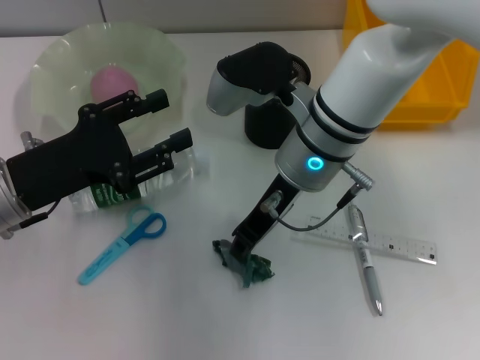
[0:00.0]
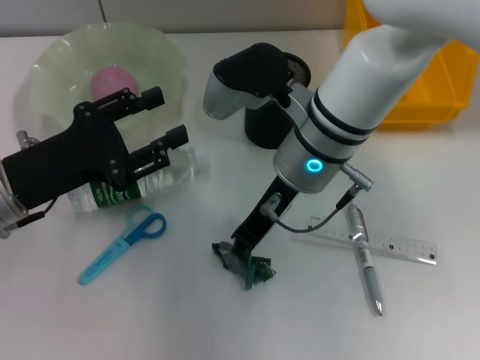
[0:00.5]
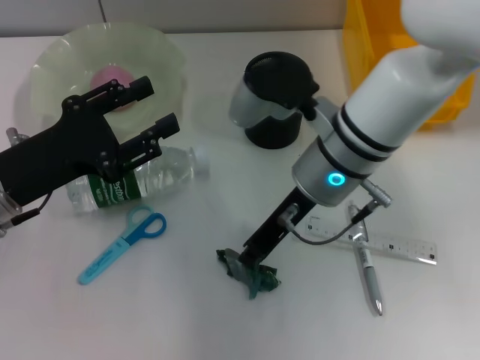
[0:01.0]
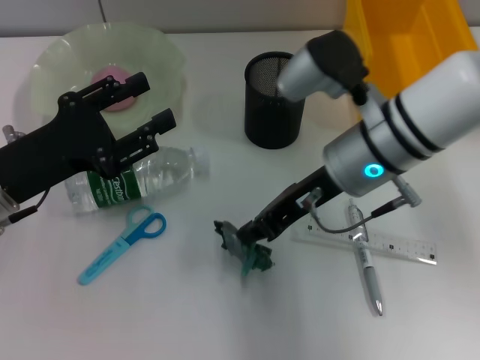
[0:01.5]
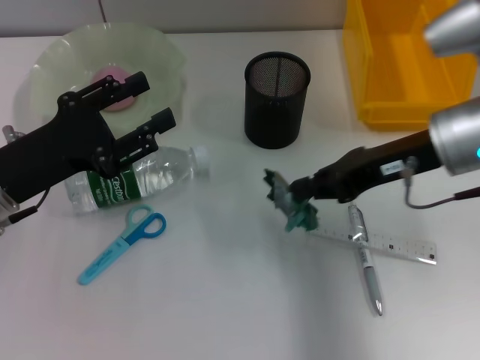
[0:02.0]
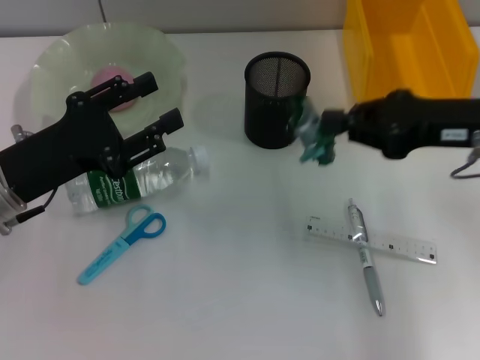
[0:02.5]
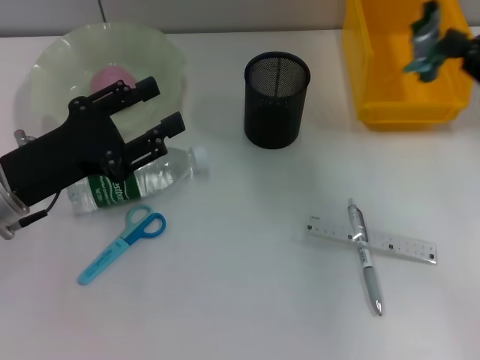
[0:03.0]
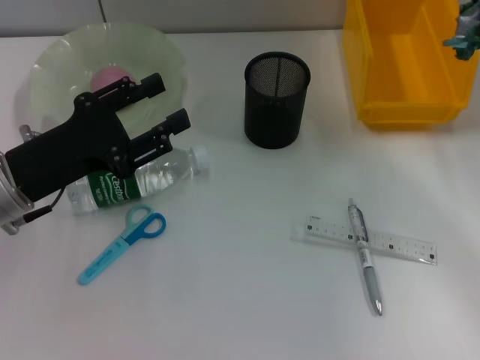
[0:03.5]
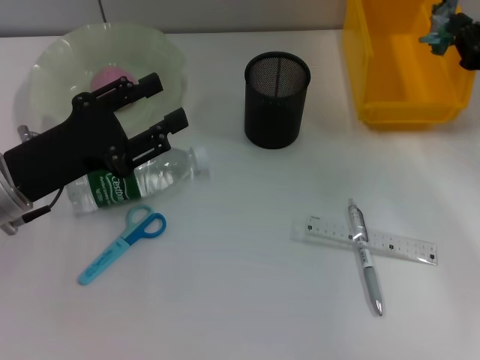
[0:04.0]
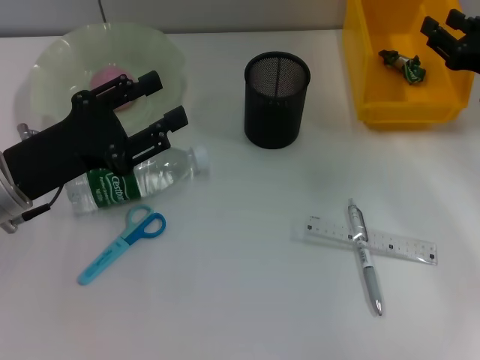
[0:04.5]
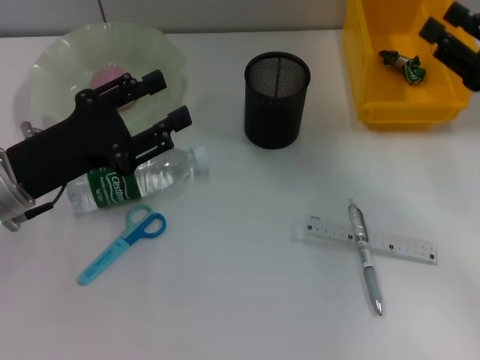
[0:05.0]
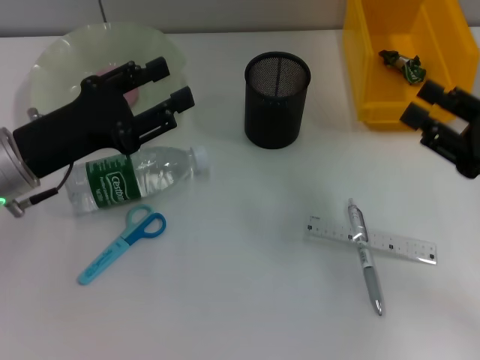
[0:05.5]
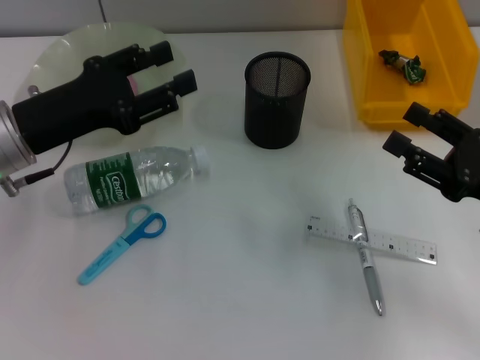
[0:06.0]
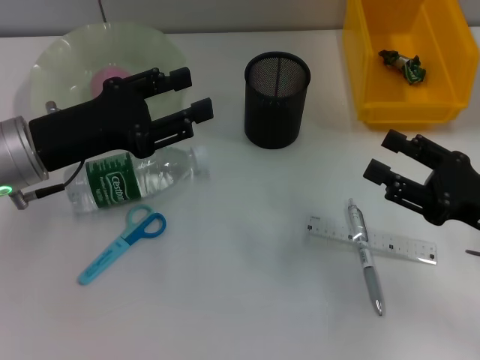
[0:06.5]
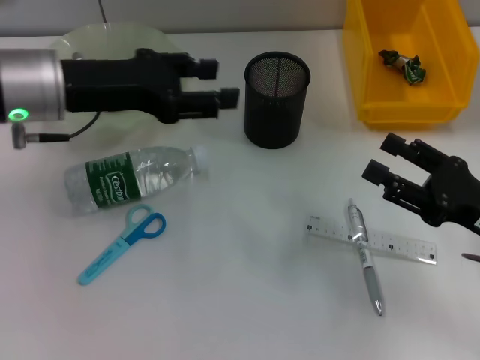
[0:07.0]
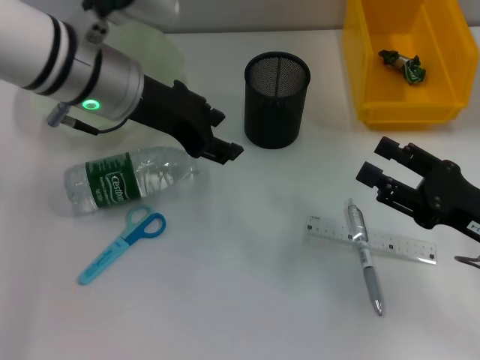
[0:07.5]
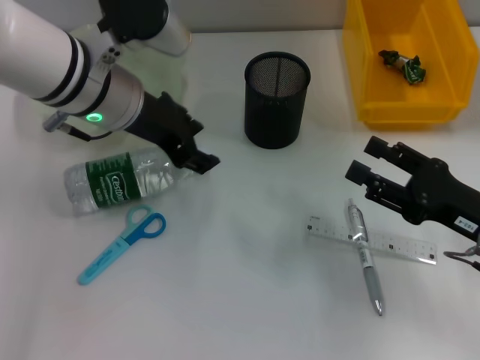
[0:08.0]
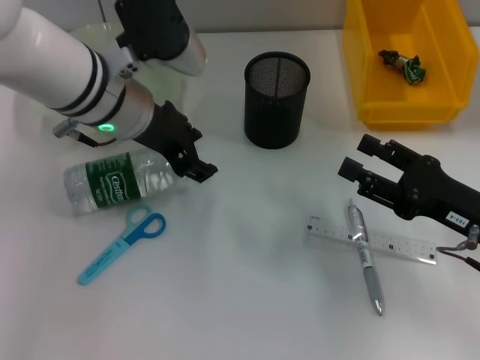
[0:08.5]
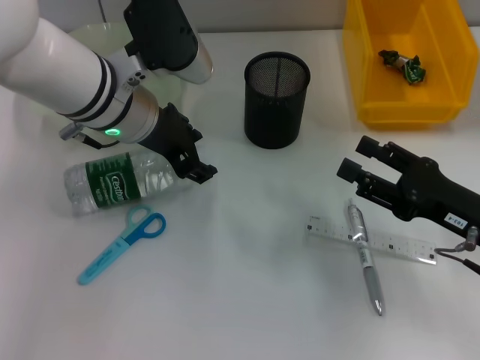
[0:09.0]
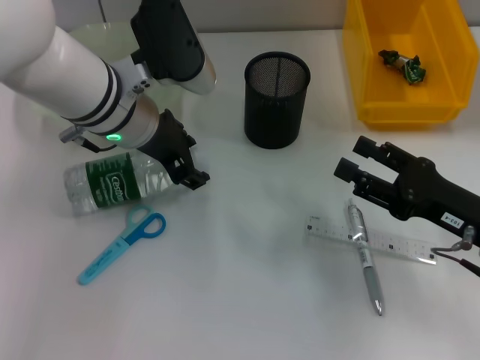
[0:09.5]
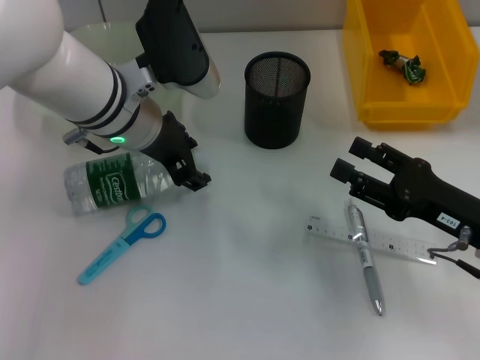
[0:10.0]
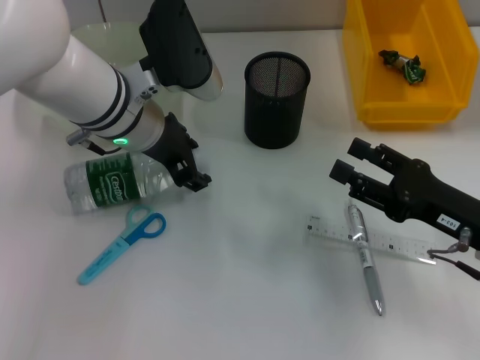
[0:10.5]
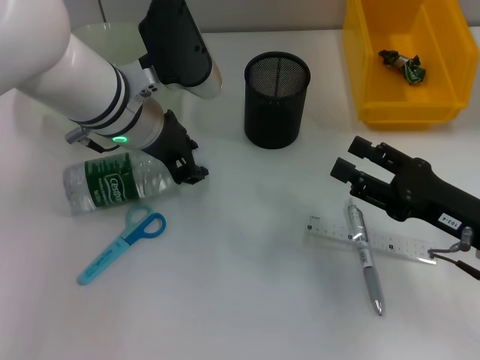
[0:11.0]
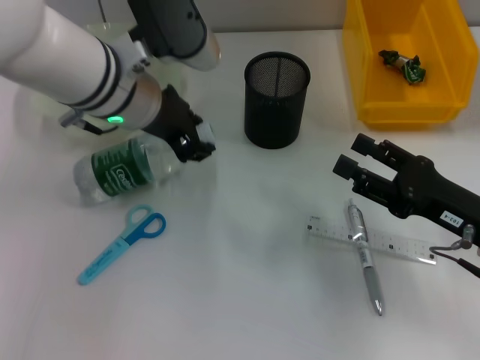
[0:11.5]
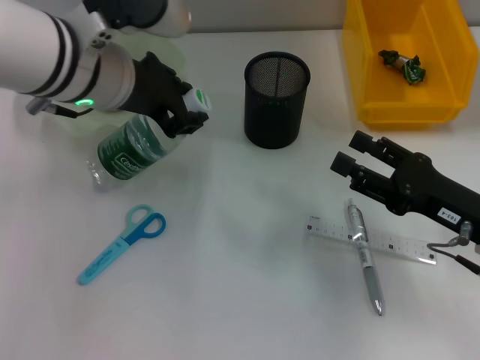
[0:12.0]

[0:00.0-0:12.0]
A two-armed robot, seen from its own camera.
Step, 1.5 to 4.5 s: Place the plastic into the trash can with the right hand.
Step, 5.0 to 11.0 s: Grab the water bottle with the left hand.
0.0 to 2.0 s: The right gripper is displaced to the right by some 15 cm.
2.0 to 4.0 s: The right gripper heads to the right and downward, covering some 15 cm.
4.0 to 6.0 s: The right gripper heads backward, covering roughly 10 cm, and opens.
6.0 to 8.0 s: The left gripper goes approximately 10 cm to the right and forward.
8.0 to 10.0 s: The grippers make only small movements.
10.0 to 12.0 s: The left gripper is displaced upward by about 5 cm.

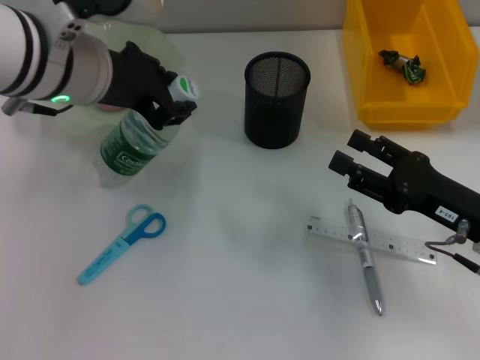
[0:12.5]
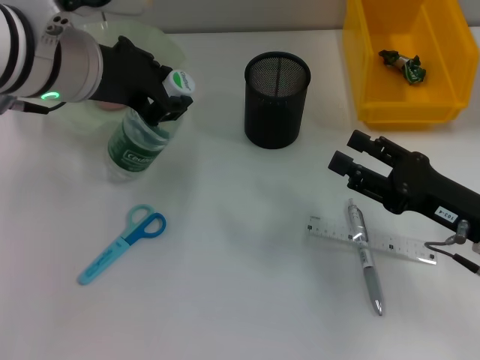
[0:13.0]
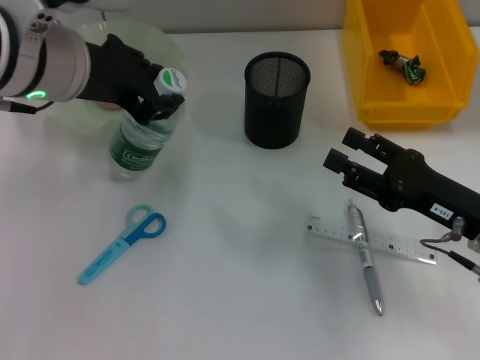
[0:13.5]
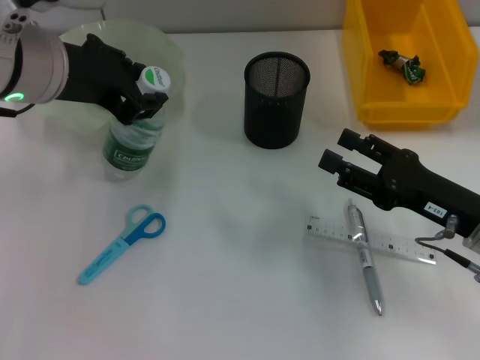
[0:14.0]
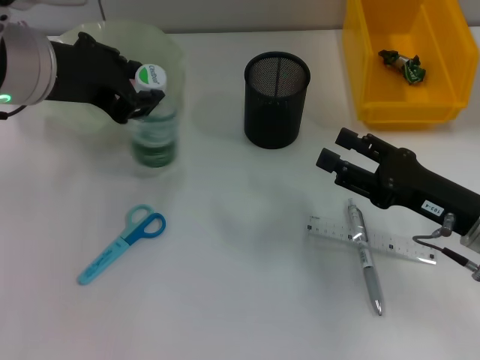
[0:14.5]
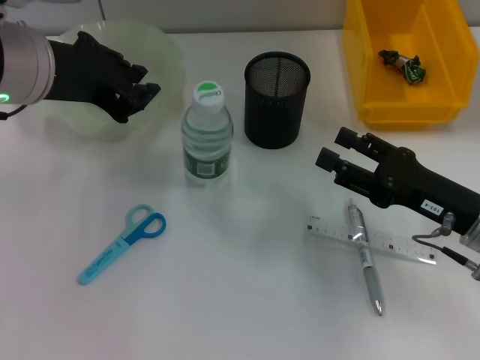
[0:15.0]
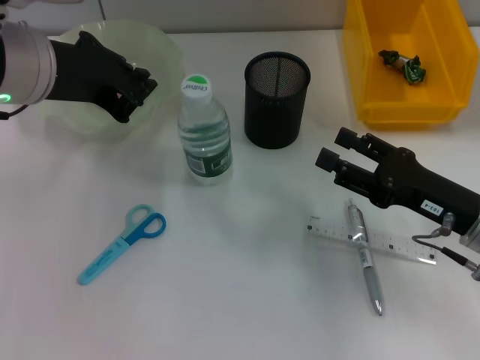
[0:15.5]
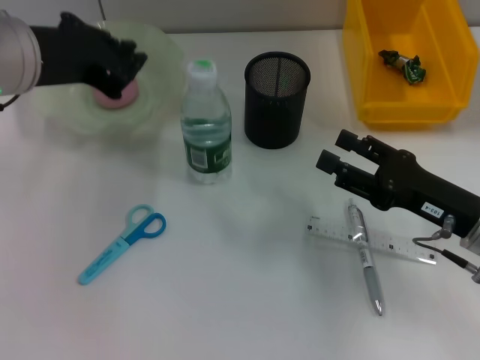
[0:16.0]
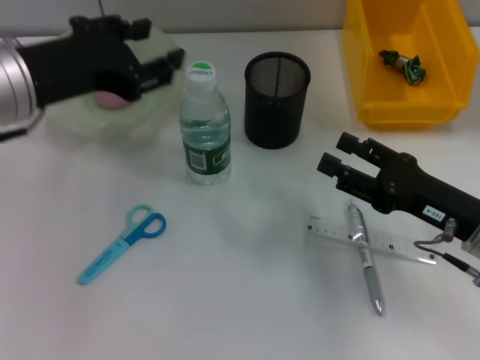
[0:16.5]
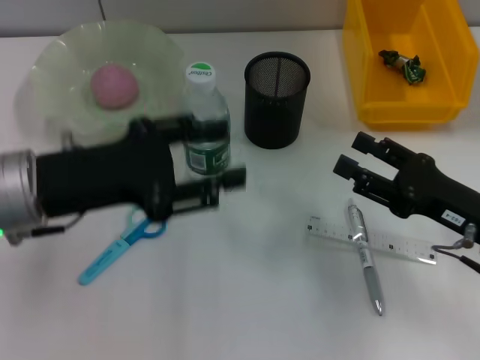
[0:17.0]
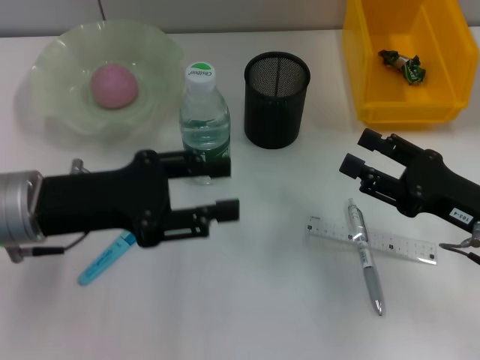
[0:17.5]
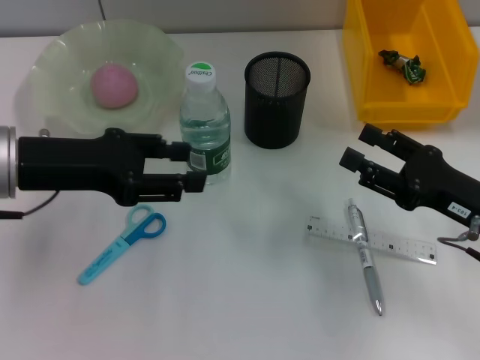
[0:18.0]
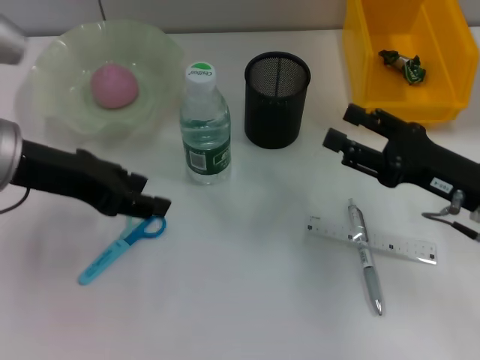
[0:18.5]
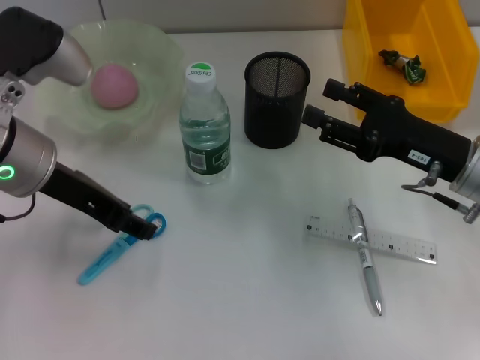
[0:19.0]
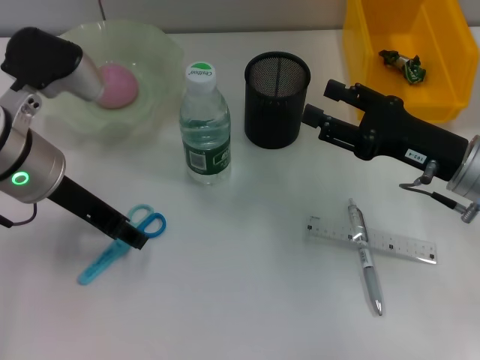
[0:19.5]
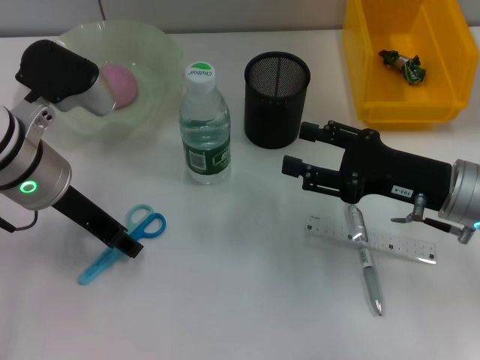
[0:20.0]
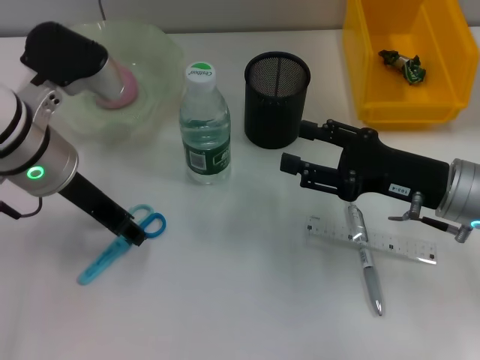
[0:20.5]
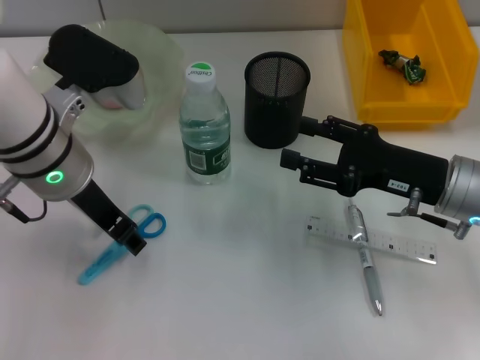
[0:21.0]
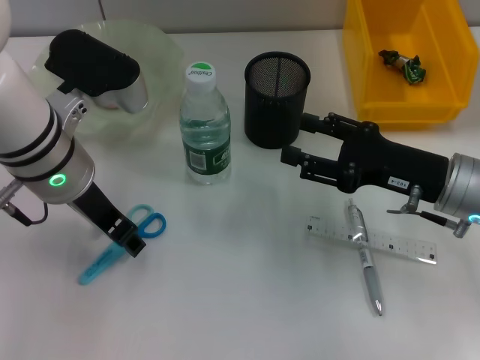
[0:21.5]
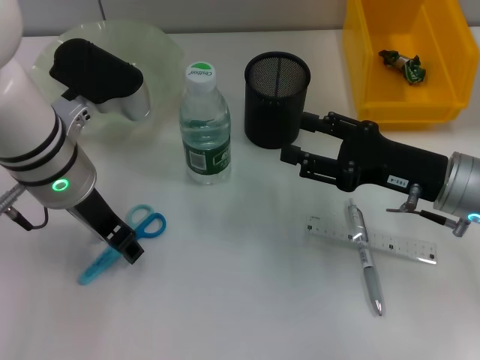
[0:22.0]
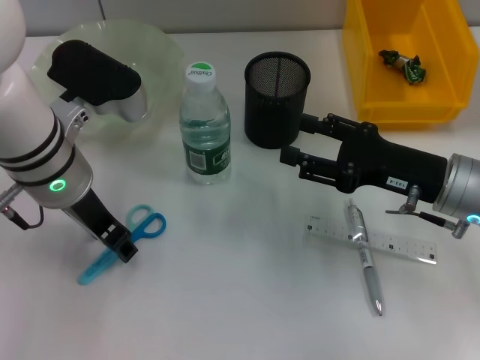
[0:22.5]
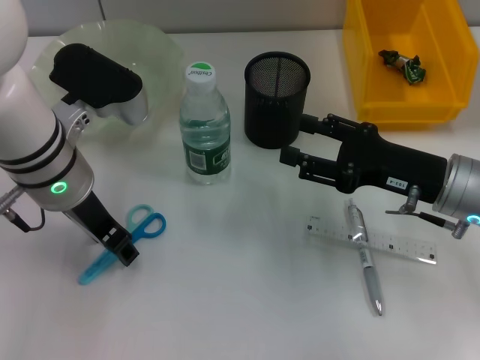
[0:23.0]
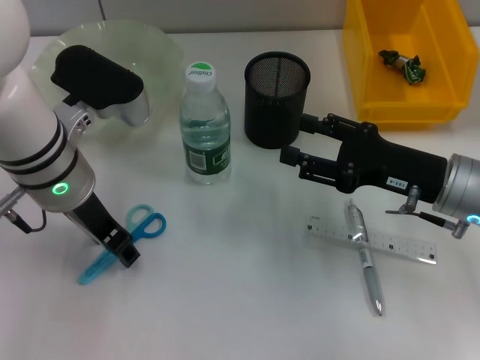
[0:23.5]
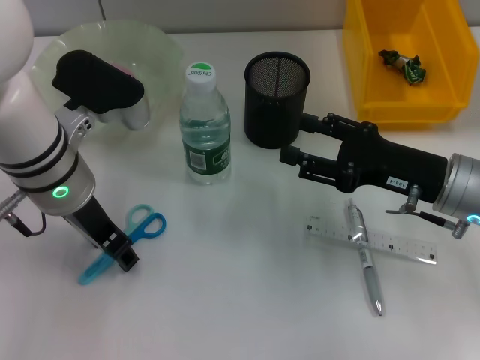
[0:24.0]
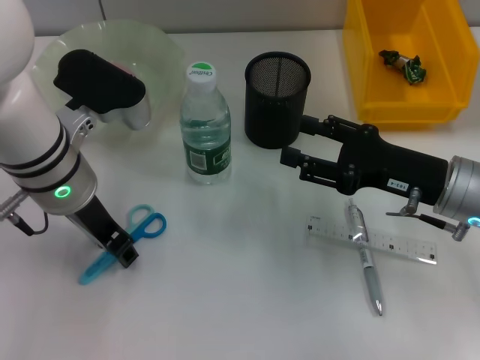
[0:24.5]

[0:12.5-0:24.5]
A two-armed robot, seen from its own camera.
Step, 12.5 to 15.5 s: Place the water bottle on the table with the left hand.
12.5 to 14.5 s: The grippers stay close to where they were, moving slightly.
14.5 to 16.5 s: The left gripper closes, then opens again.
16.5 to 18.5 s: The left gripper moves some 10 cm downward and comes back.
18.5 to 20.5 s: The left gripper changes place by roughly 5 cm.
20.5 to 22.5 s: The grippers stay close to where they were, moving slightly.
22.5 to 24.5 s: Both grippers stay put.

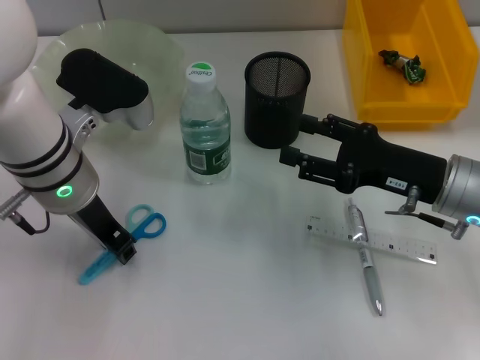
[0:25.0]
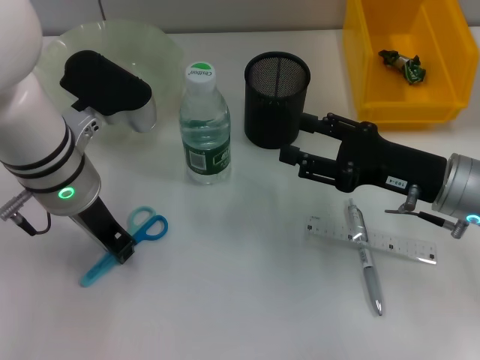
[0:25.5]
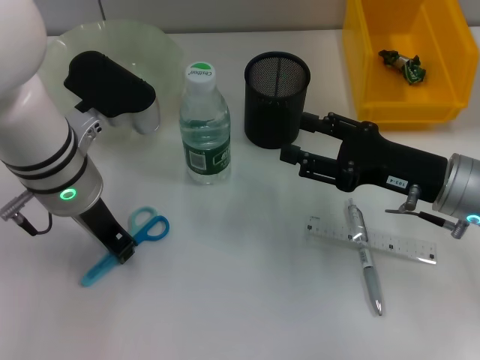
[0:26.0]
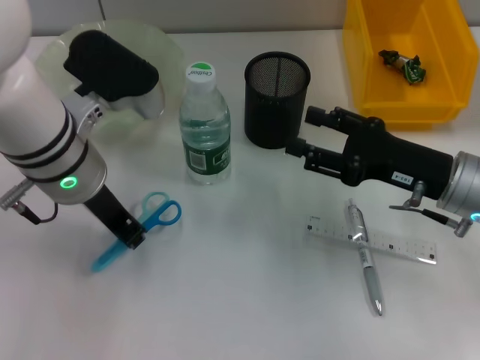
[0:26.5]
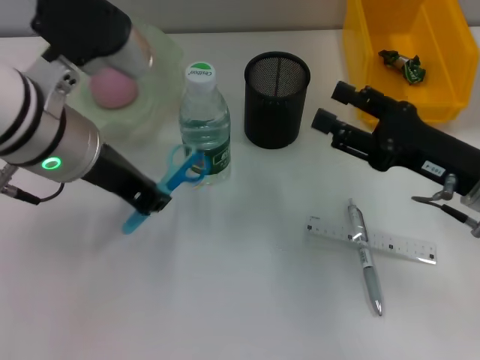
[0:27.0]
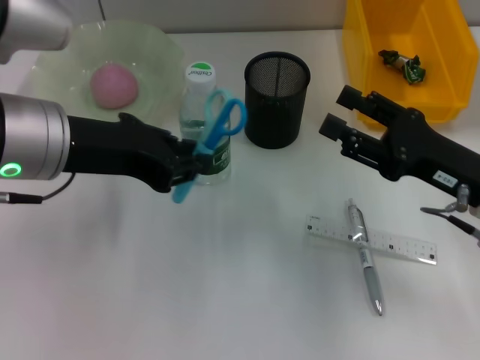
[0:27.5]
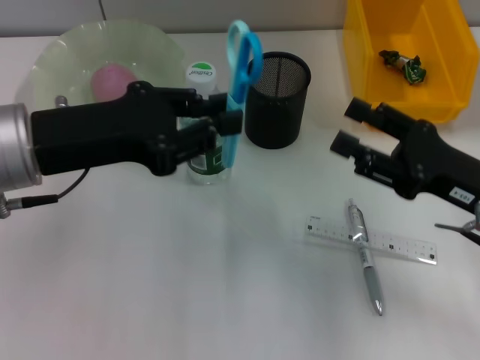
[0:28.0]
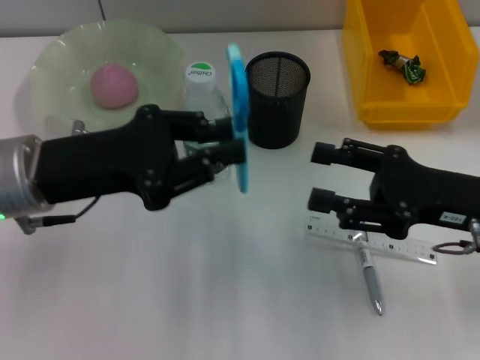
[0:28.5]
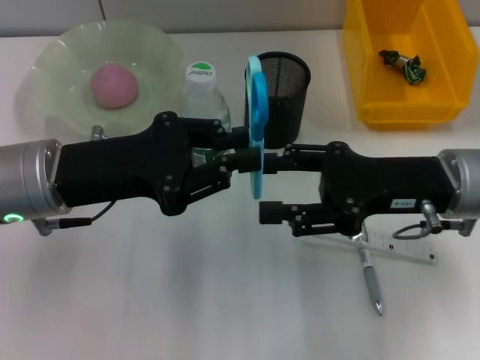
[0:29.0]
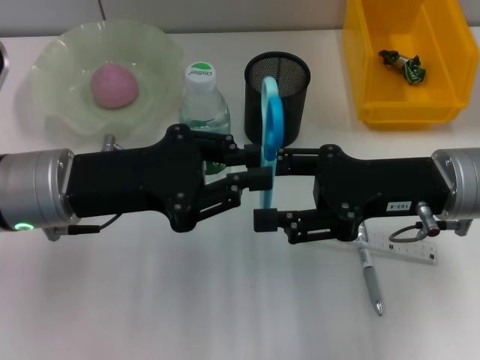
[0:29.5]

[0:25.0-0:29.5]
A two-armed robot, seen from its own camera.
25.0 to 27.0 s: The left gripper shifts some 5 cm upward.
27.0 to 29.5 s: The left gripper travels downward by approximately 5 cm, while the right gripper moves approximately 5 cm.
